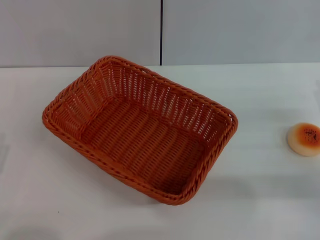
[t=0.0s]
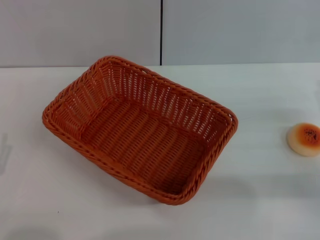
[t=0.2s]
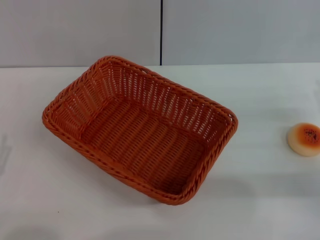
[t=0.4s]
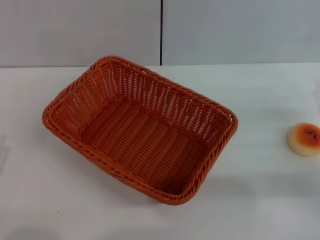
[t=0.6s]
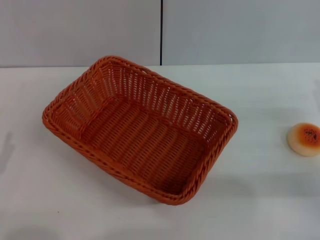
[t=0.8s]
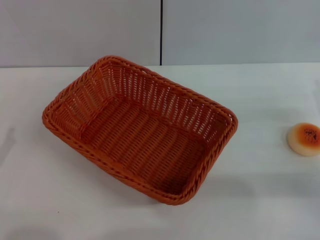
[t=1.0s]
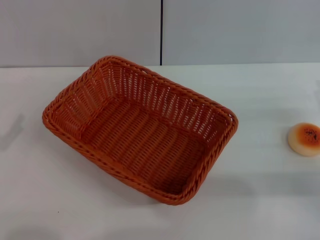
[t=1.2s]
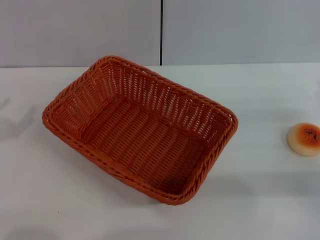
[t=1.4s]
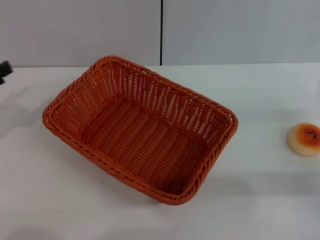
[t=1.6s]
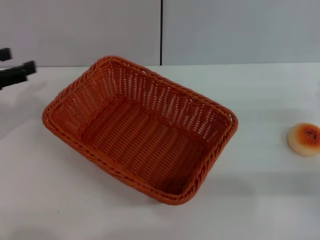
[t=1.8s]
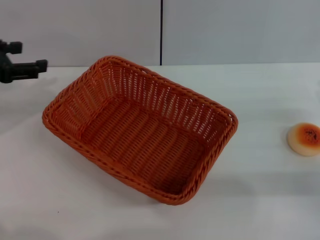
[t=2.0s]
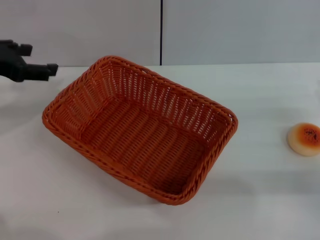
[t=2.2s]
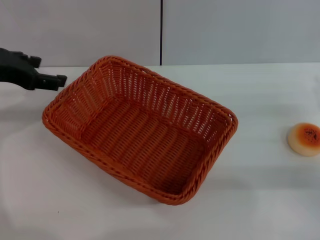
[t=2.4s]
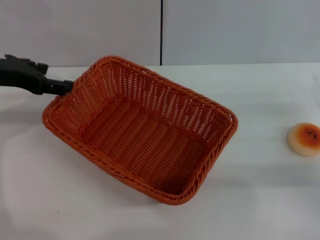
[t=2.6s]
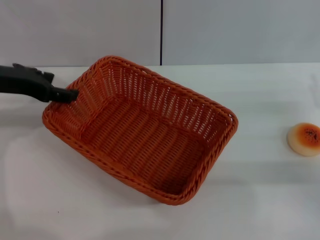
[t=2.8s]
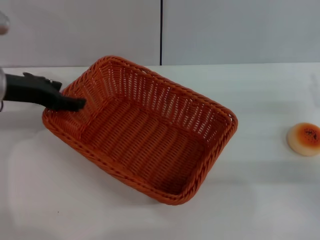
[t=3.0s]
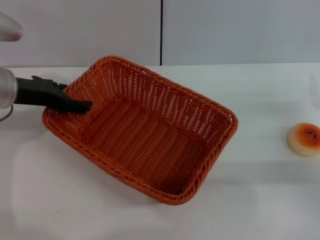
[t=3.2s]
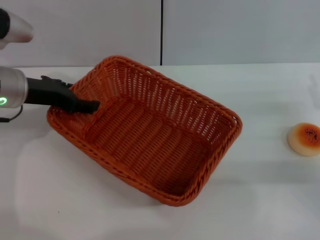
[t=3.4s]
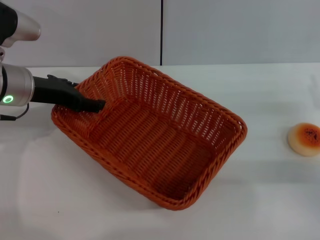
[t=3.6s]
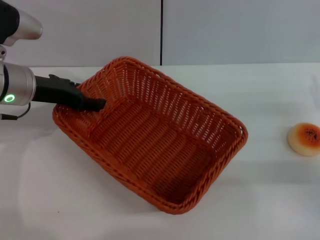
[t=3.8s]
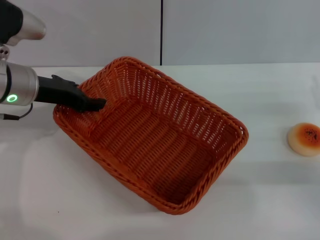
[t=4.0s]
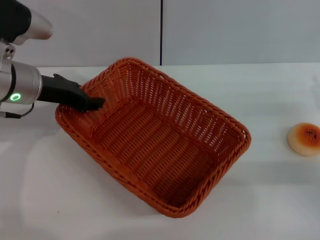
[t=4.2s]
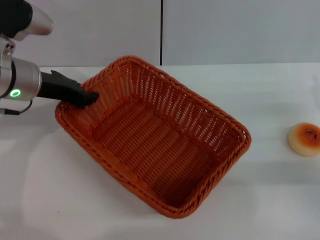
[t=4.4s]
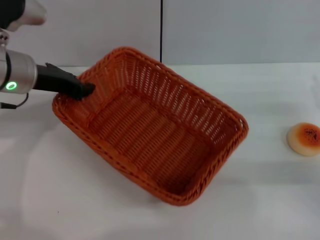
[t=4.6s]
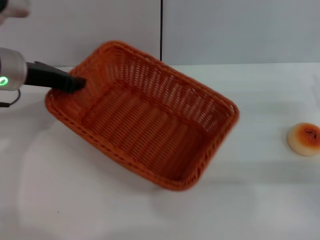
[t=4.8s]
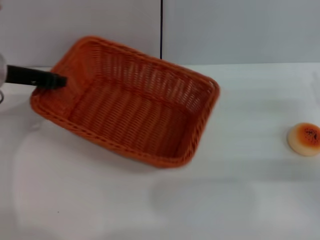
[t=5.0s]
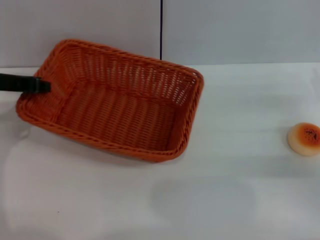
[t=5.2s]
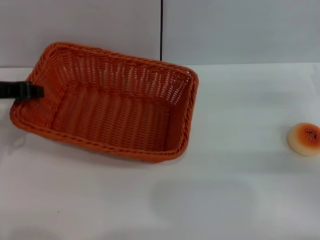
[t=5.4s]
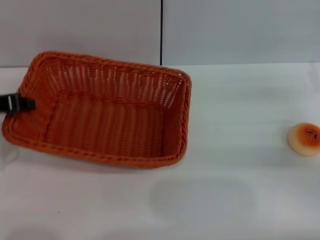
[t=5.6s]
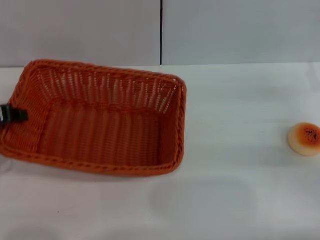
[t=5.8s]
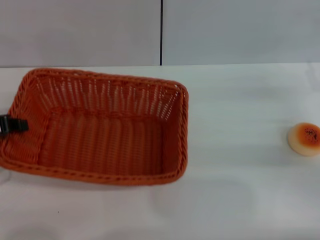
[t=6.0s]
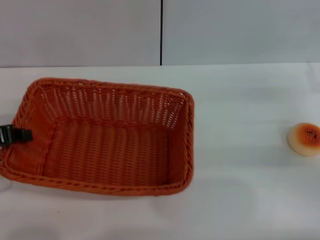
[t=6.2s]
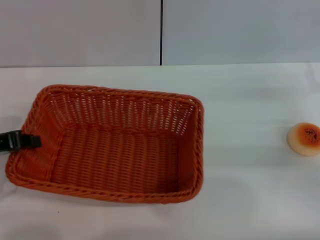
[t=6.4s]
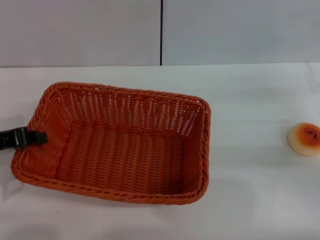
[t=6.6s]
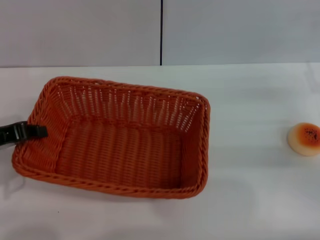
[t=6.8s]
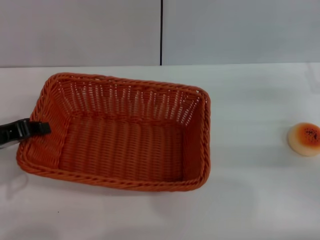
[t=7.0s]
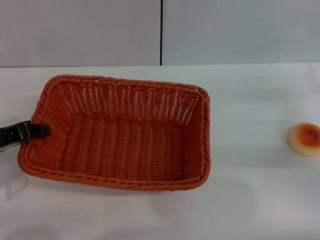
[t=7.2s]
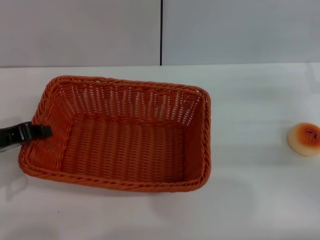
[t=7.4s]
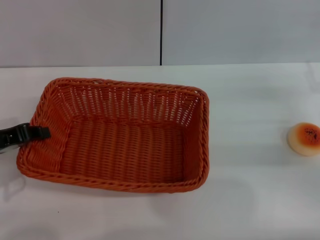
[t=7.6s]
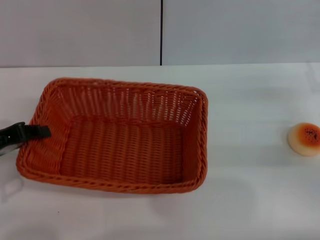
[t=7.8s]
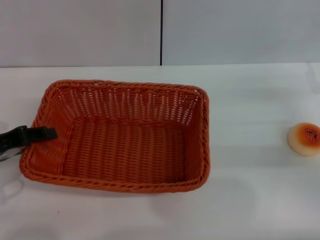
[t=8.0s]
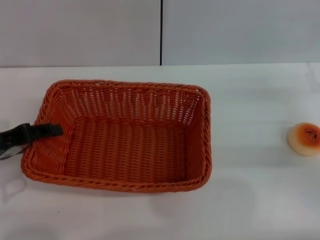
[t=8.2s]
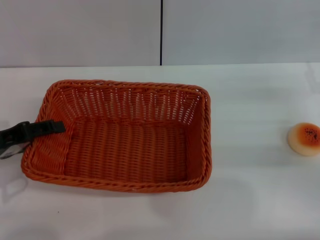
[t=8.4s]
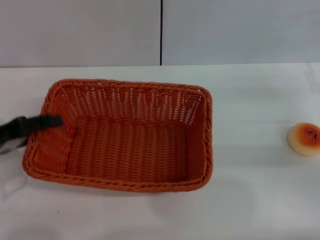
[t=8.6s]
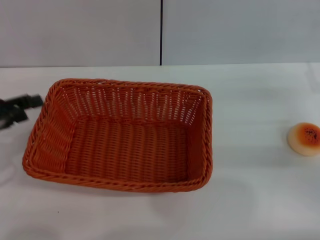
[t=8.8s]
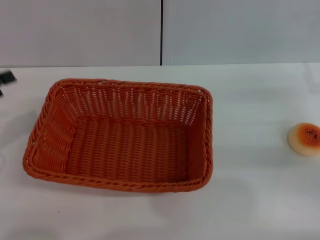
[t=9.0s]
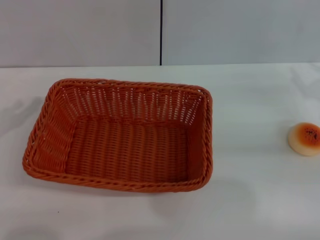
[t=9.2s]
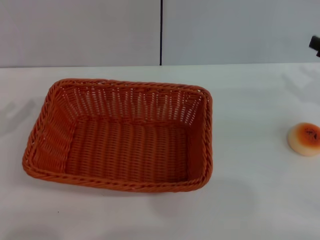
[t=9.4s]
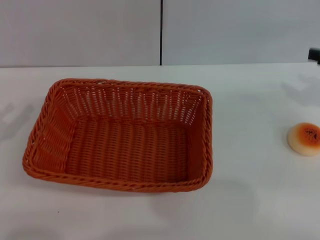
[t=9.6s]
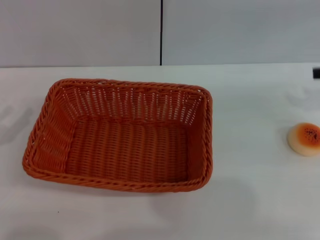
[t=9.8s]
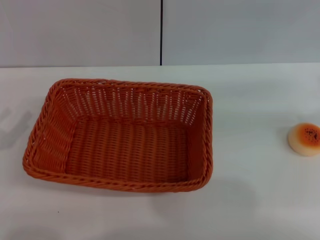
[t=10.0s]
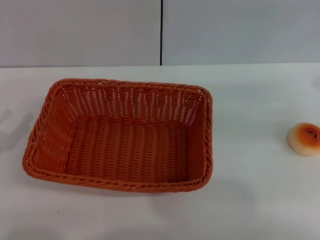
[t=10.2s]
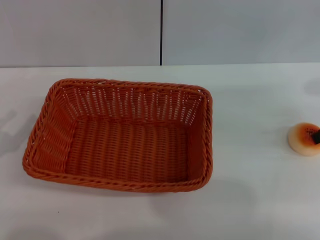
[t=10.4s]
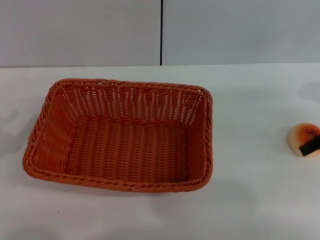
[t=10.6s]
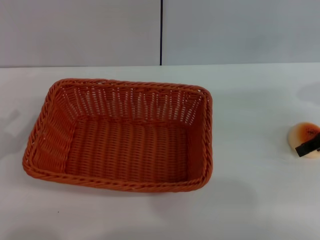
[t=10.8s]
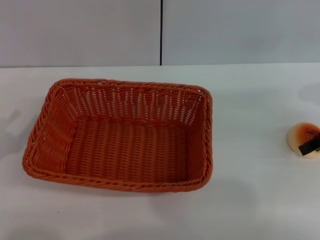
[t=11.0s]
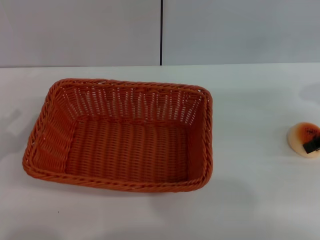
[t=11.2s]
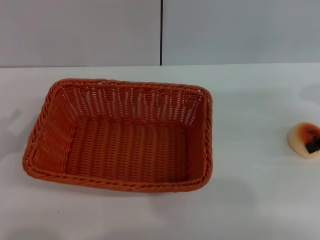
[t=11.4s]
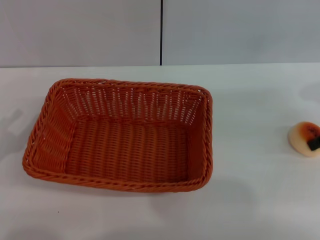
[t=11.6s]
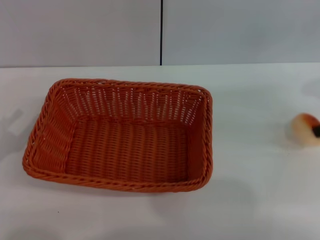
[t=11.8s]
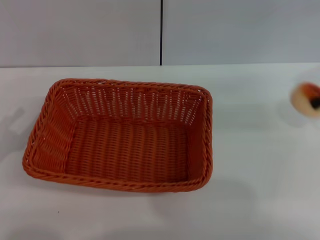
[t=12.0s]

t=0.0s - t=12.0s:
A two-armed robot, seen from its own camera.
Step, t=0.0s - t=8.6s: Move the basket to the center of view with the left gripper.
t=1.6s - t=3.0s: The left gripper travels to the right and forward by about 15 cm.
t=3.0s - t=4.4s: The left gripper closes.
t=4.4s - t=6.0s: The left gripper goes roughly 15 cm backward and to the left.
t=6.0s - t=7.6s: The grippers move only a little.
t=7.6s - t=9.0s: The left gripper moves to the left, approximately 5 cm, and opens up.
t=9.0s - t=10.4s: The right gripper is displaced upward by some 10 cm.
t=10.4s - t=12.0s: The right gripper closes its fingers.

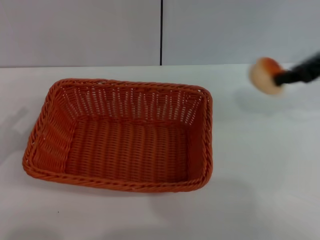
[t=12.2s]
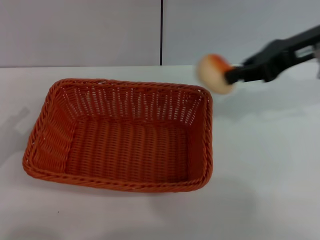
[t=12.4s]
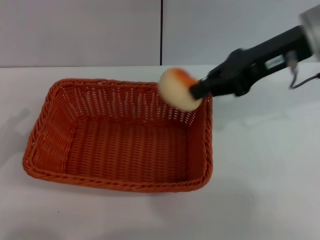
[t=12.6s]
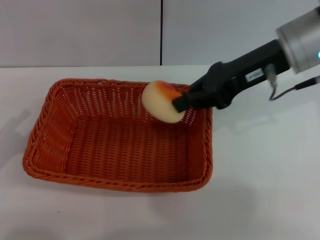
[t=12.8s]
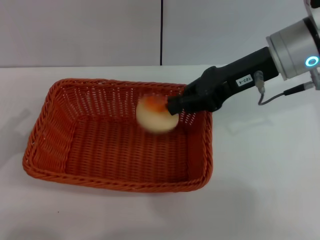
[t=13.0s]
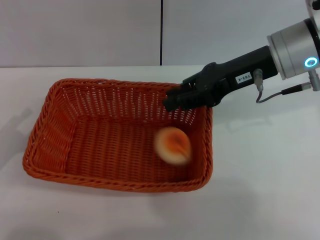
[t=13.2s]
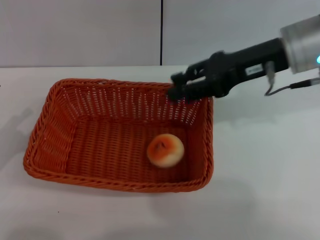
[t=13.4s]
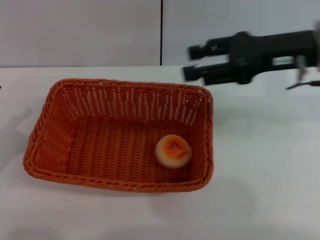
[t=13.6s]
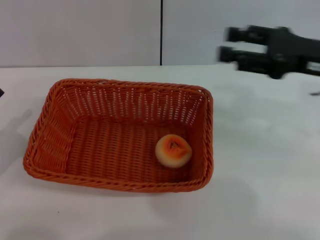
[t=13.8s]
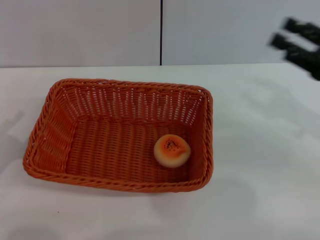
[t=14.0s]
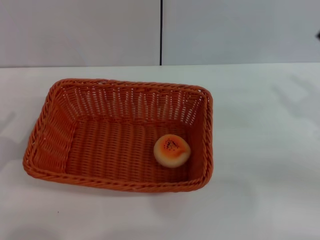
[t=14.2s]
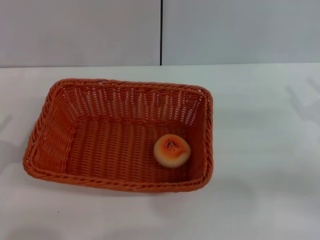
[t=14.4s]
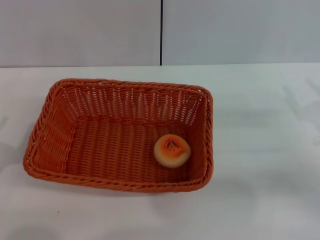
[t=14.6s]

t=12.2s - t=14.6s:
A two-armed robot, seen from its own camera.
Step, t=12.2s - t=13.4s: Place the egg yolk pastry into the basket with the right gripper.
t=12.2s - t=13.4s: The right gripper moves to the left, some 10 cm, and opens up.
t=13.4s - t=14.6s: The right gripper shifts roughly 25 cm downward, to the right and backward, and opens up.
